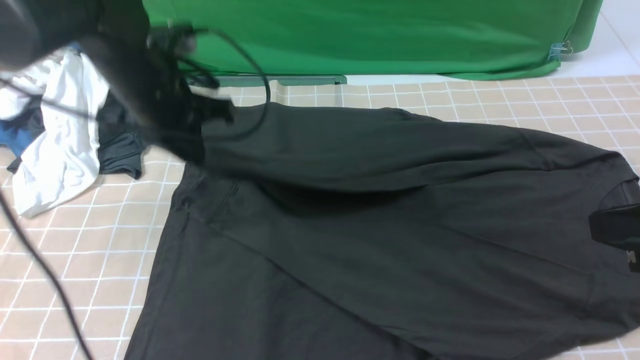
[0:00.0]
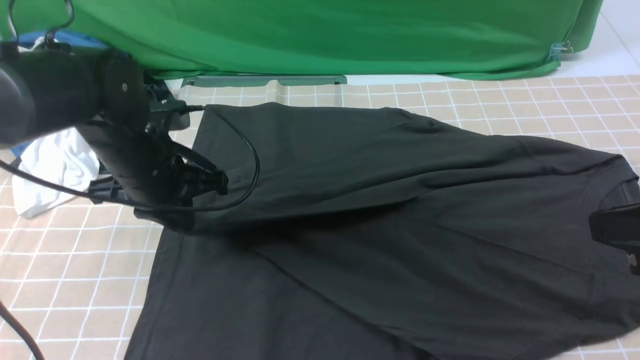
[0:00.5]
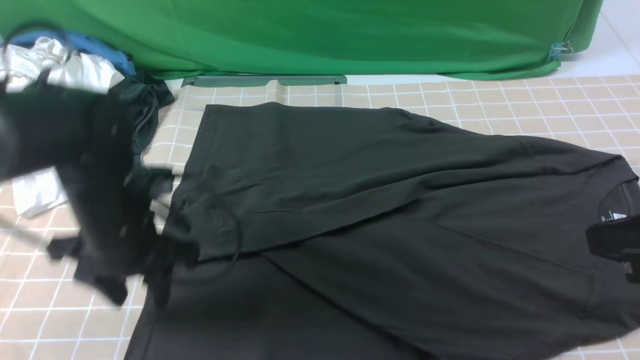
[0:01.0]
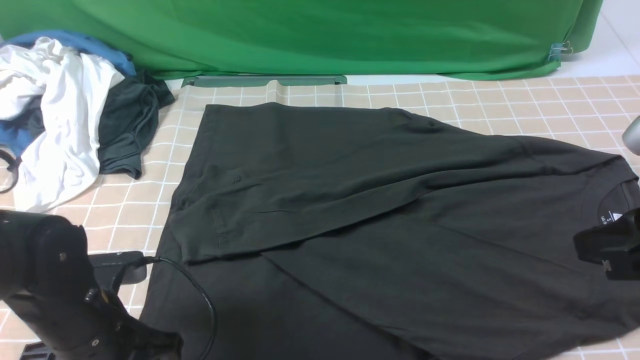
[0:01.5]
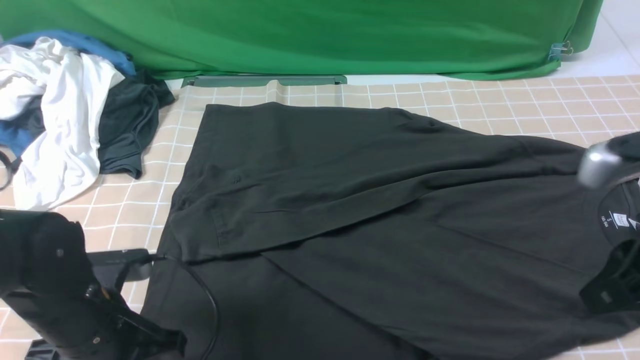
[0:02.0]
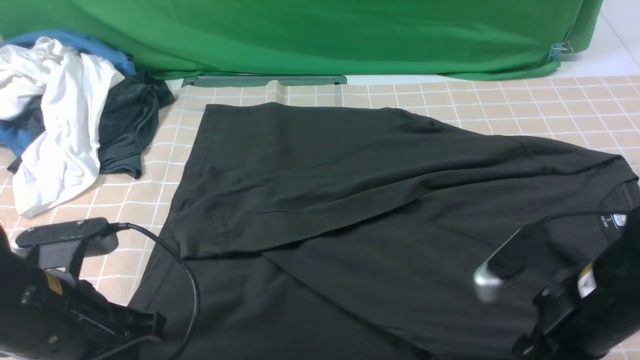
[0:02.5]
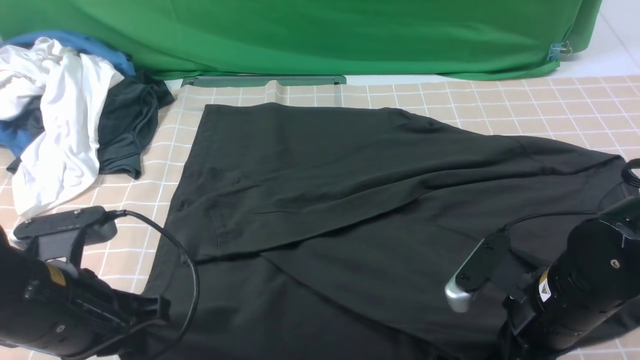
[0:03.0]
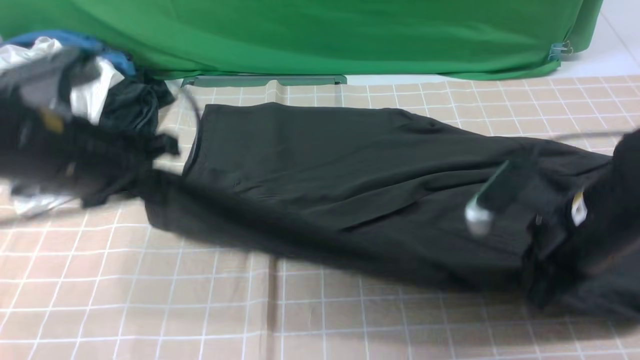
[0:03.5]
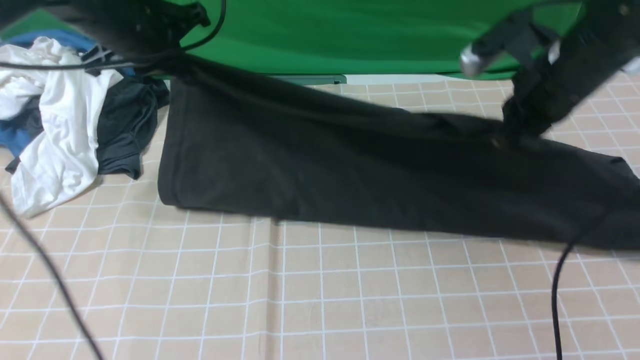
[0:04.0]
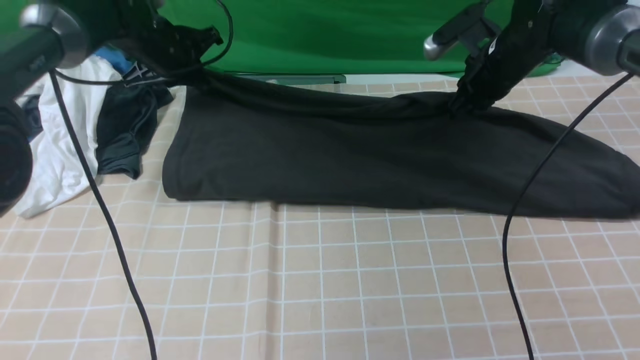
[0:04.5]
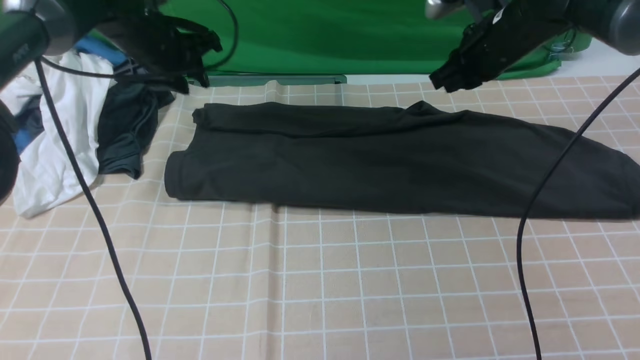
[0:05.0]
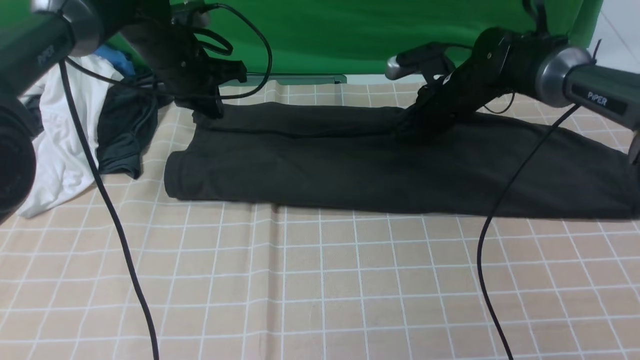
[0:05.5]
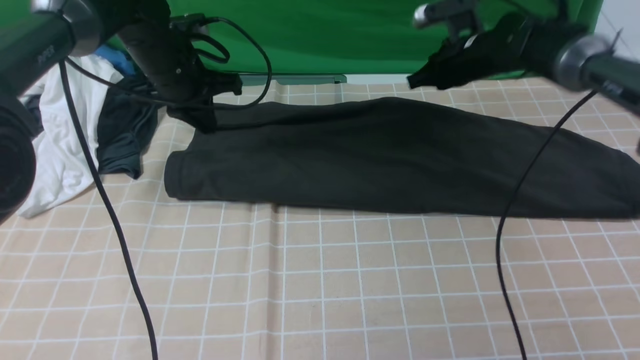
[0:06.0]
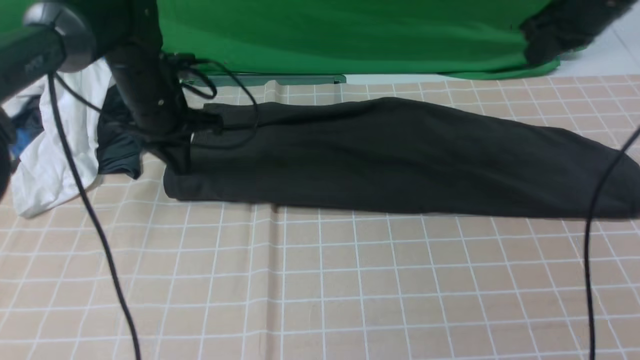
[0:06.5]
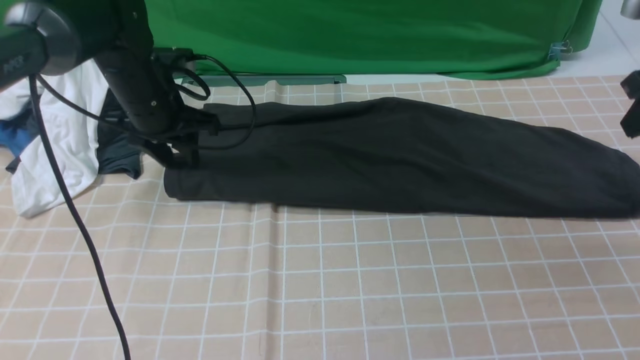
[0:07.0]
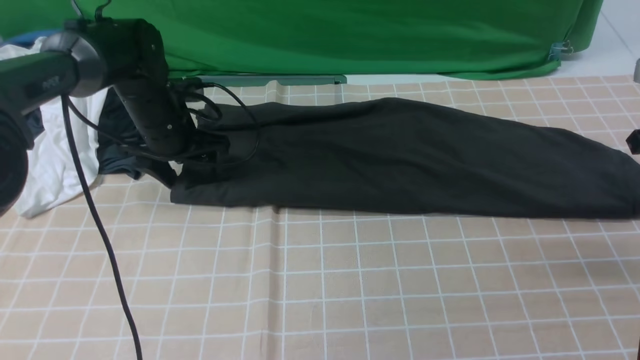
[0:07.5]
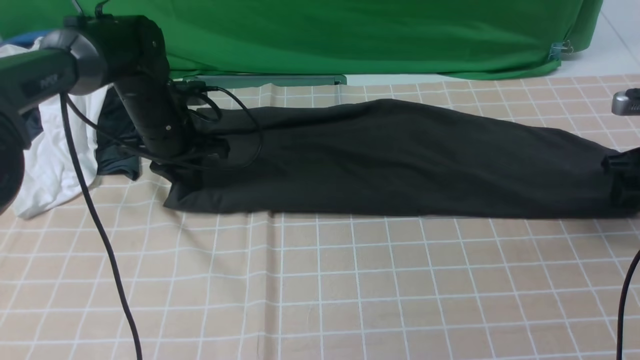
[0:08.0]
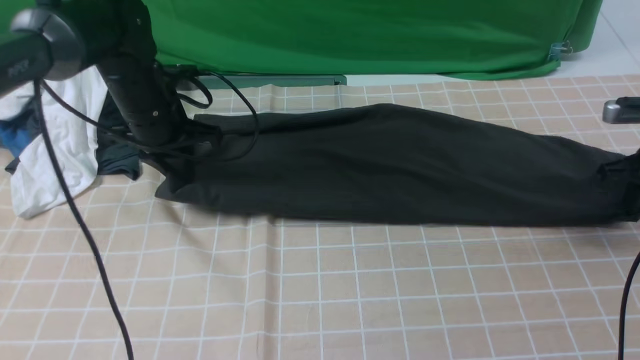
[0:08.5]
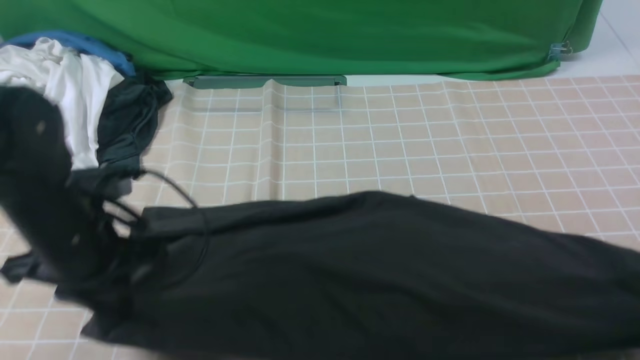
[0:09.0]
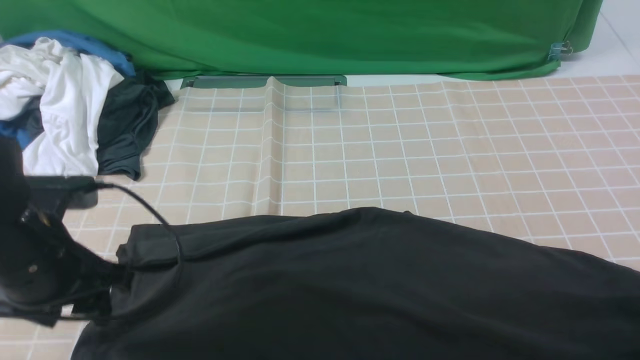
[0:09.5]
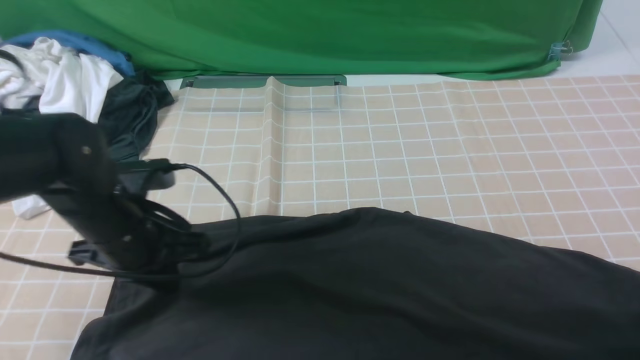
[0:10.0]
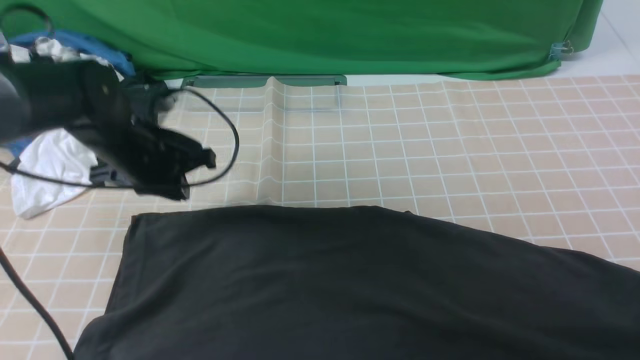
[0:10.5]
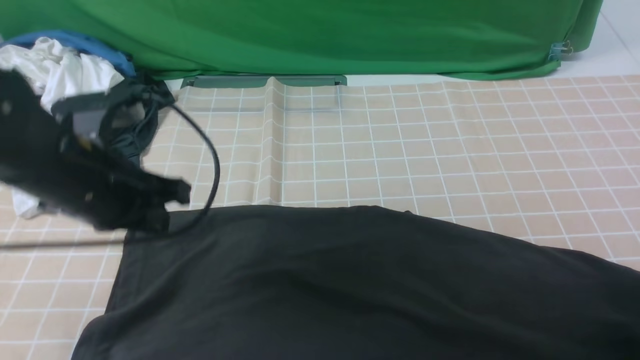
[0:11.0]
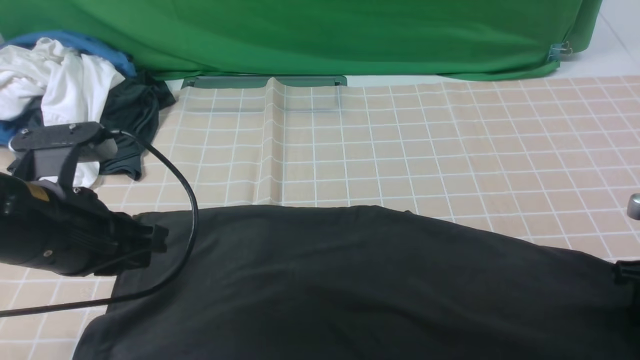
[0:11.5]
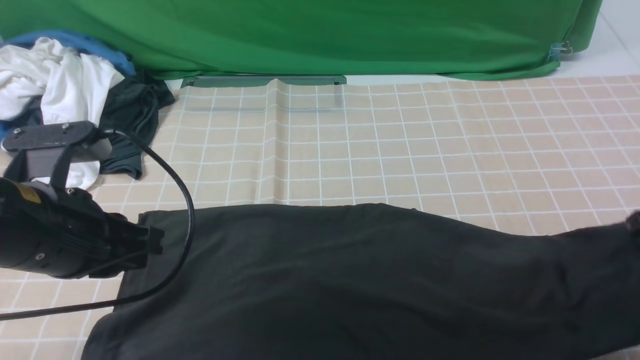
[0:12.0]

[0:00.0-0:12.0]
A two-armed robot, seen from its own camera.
Step, 0:01.0 to 0:02.5: use both arms simultaneously to clamp the lower edge of the clothing fabric.
Step, 0:03.5 to 0:04.5: use both arms to drag the lower edge of the fabric forward and fold it over the upper edge.
Step, 0:05.0 to 0:11.5: use the right arm to clamp the right edge of the fabric.
0:00.0 to 0:02.0: The left gripper travels backward and downward by approximately 20 cm, and opens, then closes again; the right gripper shifts by roughly 5 cm.
0:02.0 to 0:04.0: The left gripper is displaced forward and upward by about 30 cm. The right gripper goes approximately 20 cm forward, and opens, then closes once more.
0:04.0 to 0:06.0: The left gripper goes some 10 cm downward, while the right gripper moves forward and downward, approximately 15 cm.
0:06.0 to 0:08.0: The right gripper travels to the right and backward by about 25 cm, and opens. The left gripper is displaced downward by about 5 cm, and opens and closes again.
0:08.0 to 0:10.0: Both grippers travel together backward, about 15 cm. The left gripper opens and closes again. The right gripper closes up.
0:10.0 to 0:12.0: The left gripper travels upward and backward by approximately 10 cm; the right gripper travels forward by about 5 cm, travels downward and back again, about 5 cm each way, and opens and closes again.

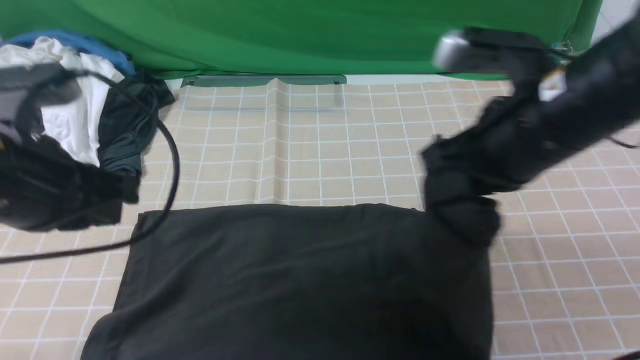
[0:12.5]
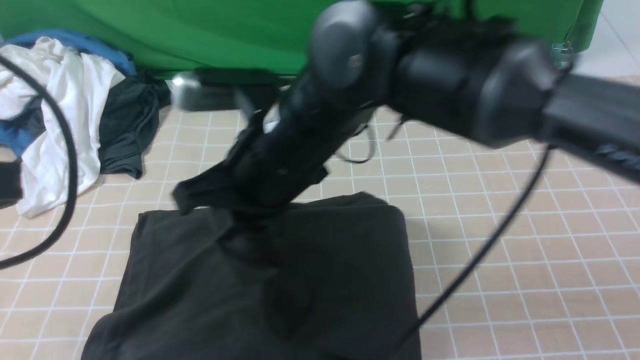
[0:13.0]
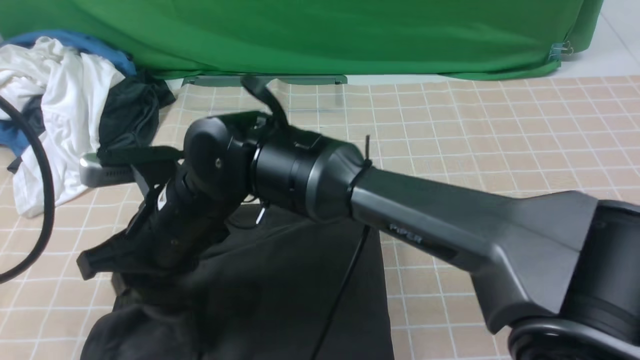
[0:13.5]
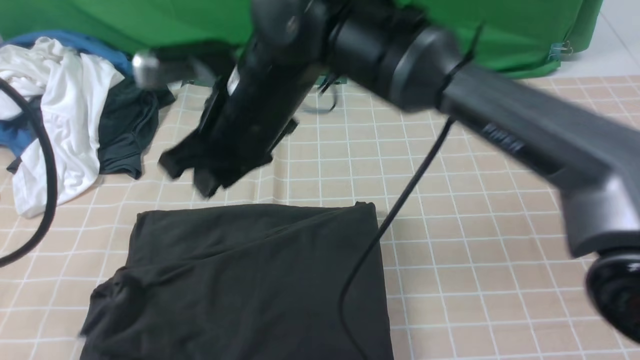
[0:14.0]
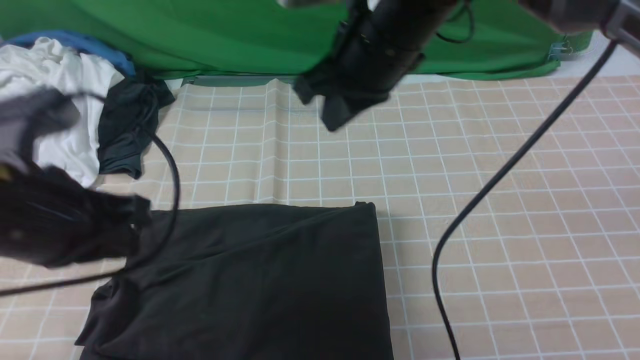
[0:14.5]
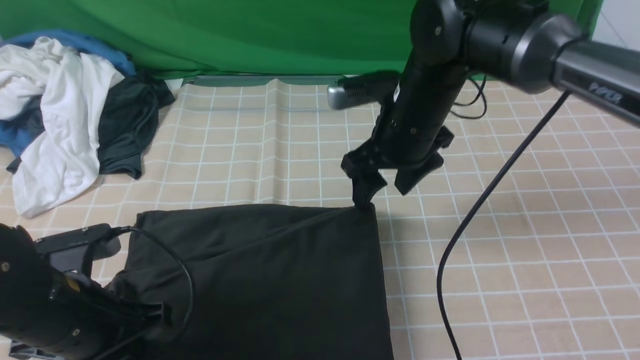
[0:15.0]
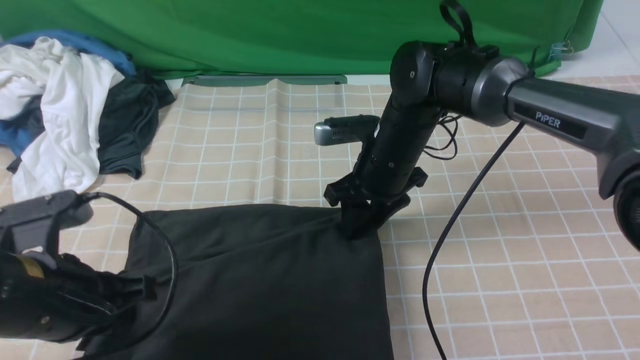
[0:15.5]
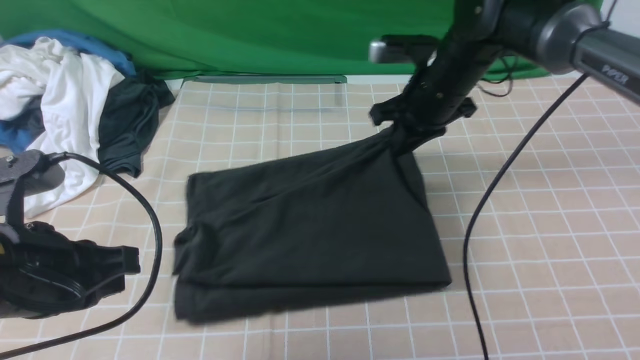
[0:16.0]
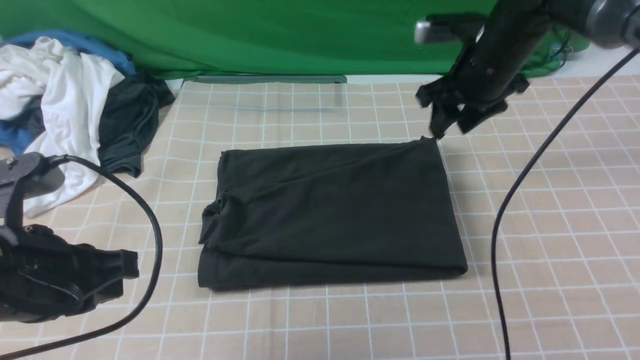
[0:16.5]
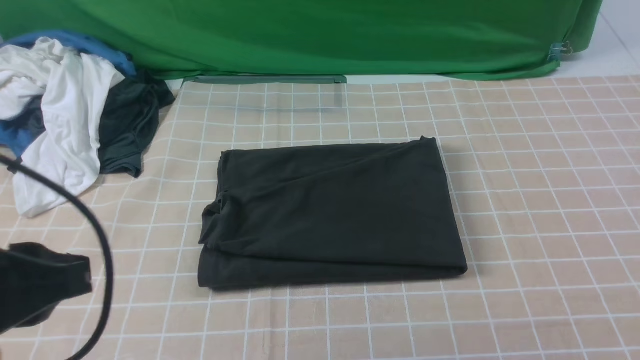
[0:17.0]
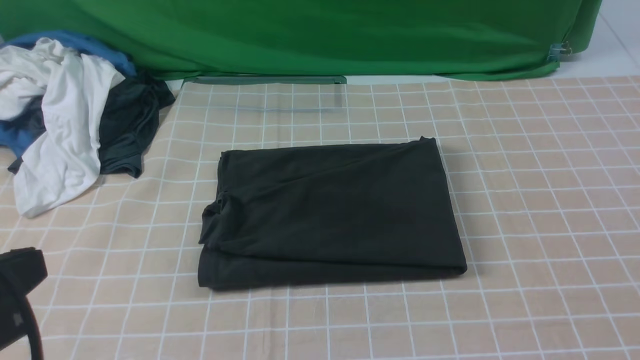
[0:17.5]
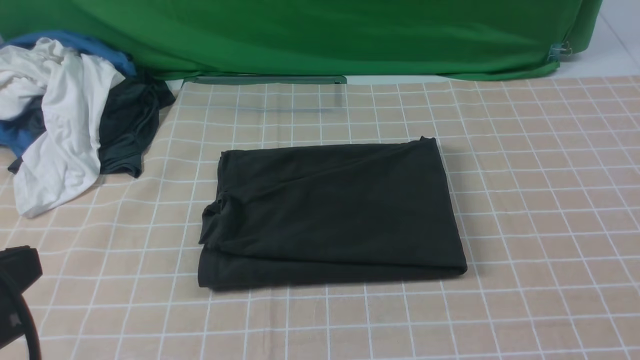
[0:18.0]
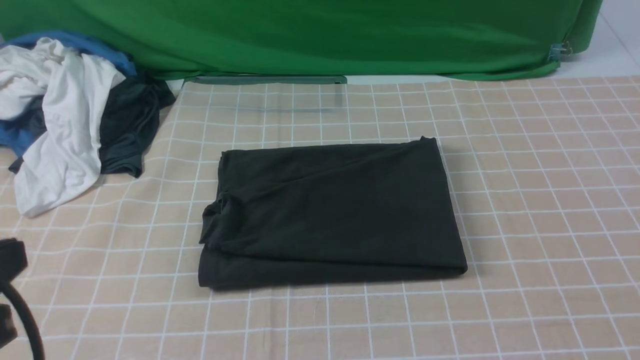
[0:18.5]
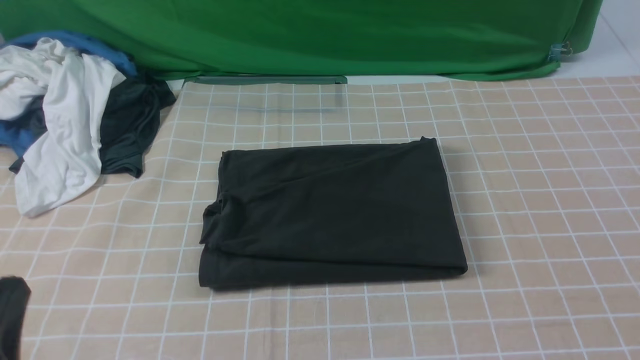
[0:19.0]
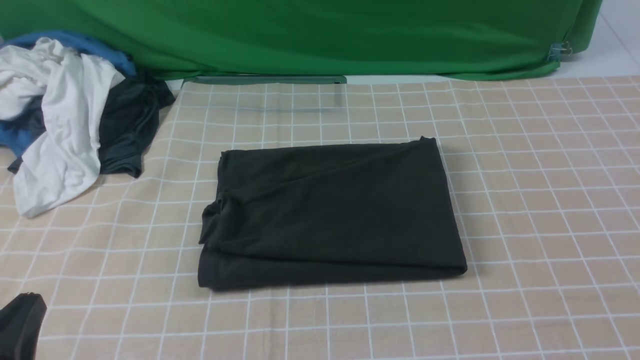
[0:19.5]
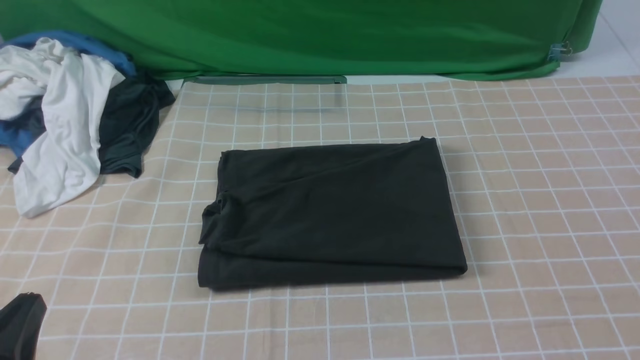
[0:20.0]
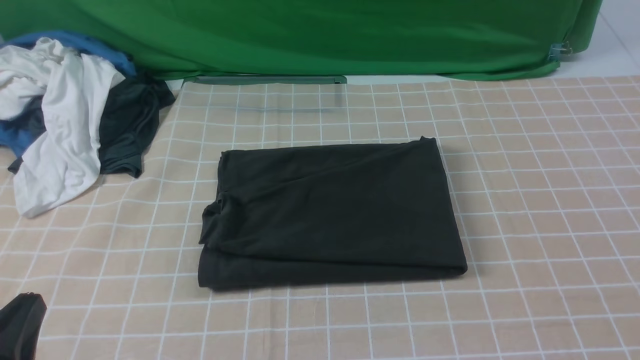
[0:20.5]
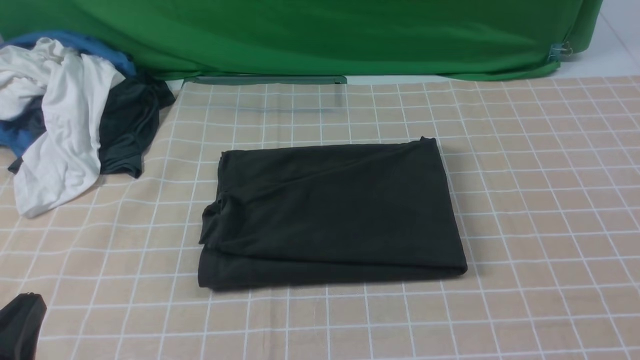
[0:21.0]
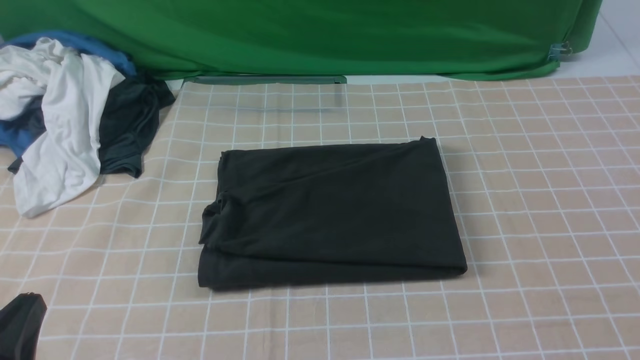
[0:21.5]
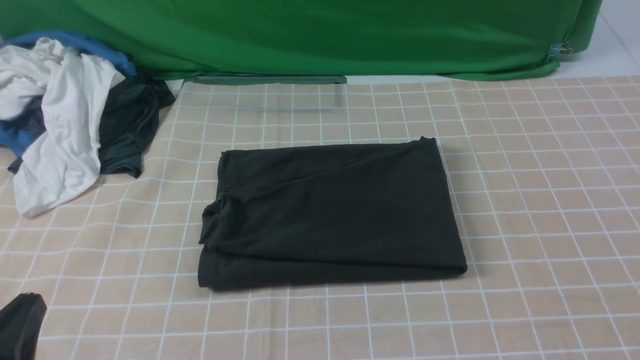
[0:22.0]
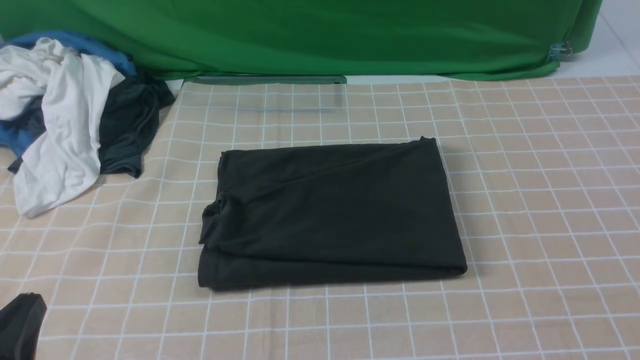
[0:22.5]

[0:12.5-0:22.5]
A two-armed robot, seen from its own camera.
Step, 0:12.5 to 0:14.0: use the right arm to drag the right edge of the fabric to the left and folds it over the left edge.
0:12.5 to 0:14.5: The right gripper travels forward by approximately 10 cm, travels to the left and back again, about 25 cm each way, and opens, then closes again.
0:14.5 to 0:16.5: The right gripper moves to the right and forward, some 15 cm, goes downward and returns, roughly 15 cm each way, and opens and closes again. Meanwhile the left gripper goes downward and returns, approximately 10 cm each way.
0:16.5 to 0:18.5: The right gripper shifts roughly 40 cm backward, and closes and opens again. Meanwhile the left gripper travels backward and upward by approximately 10 cm.
0:18.5 to 0:20.5: The left gripper moves downward, about 15 cm.
